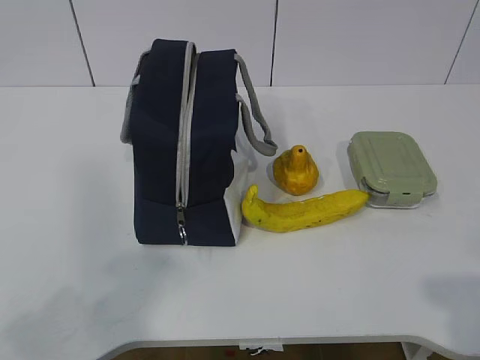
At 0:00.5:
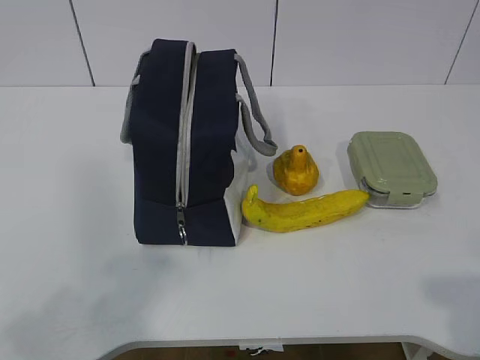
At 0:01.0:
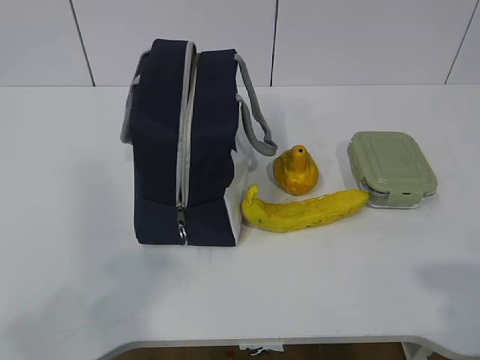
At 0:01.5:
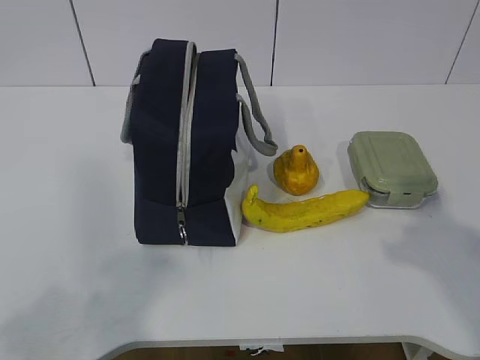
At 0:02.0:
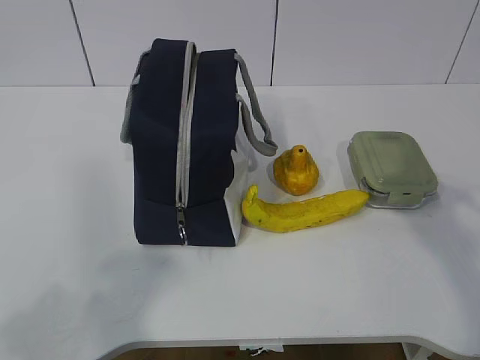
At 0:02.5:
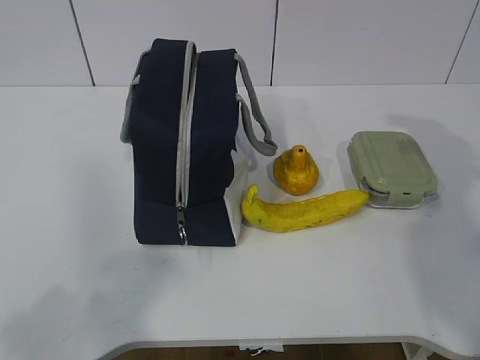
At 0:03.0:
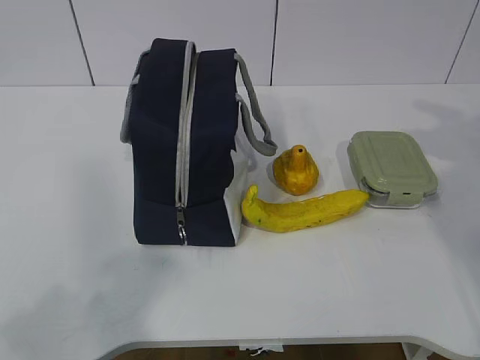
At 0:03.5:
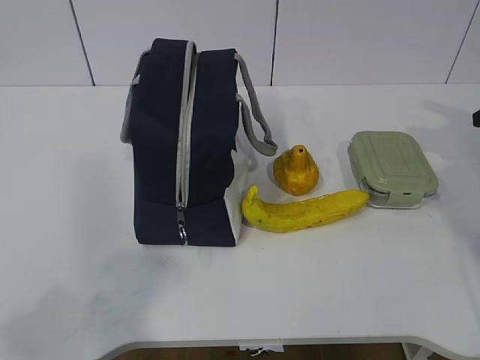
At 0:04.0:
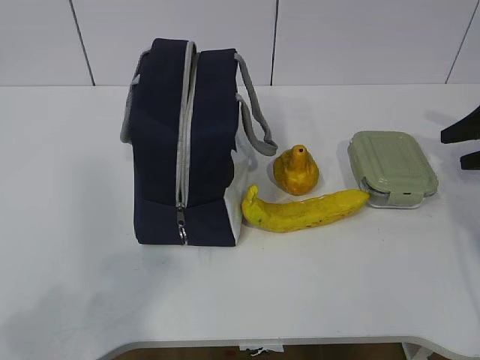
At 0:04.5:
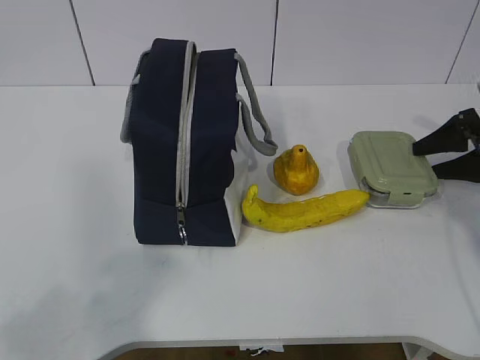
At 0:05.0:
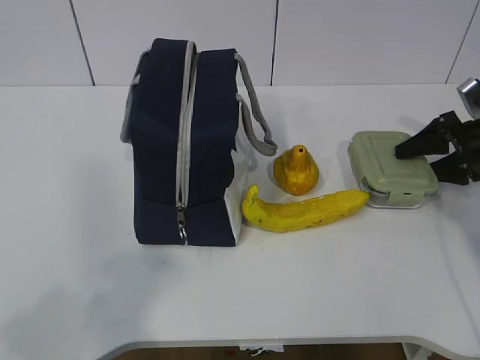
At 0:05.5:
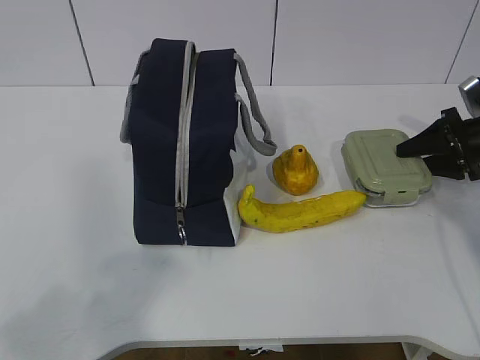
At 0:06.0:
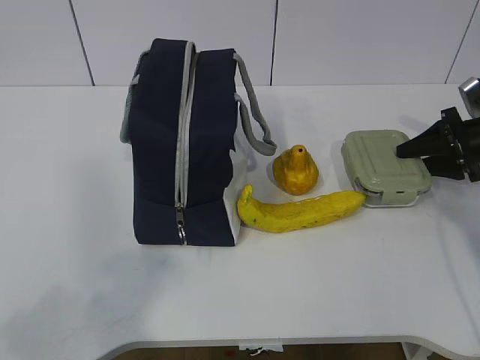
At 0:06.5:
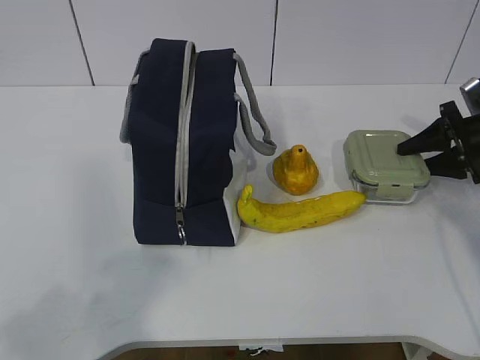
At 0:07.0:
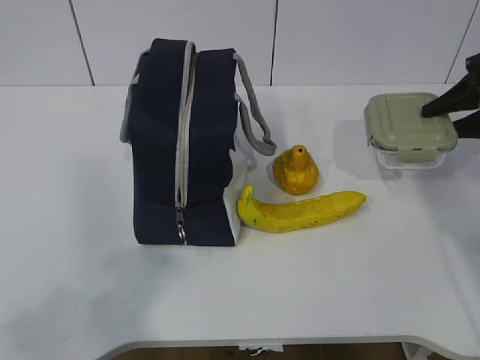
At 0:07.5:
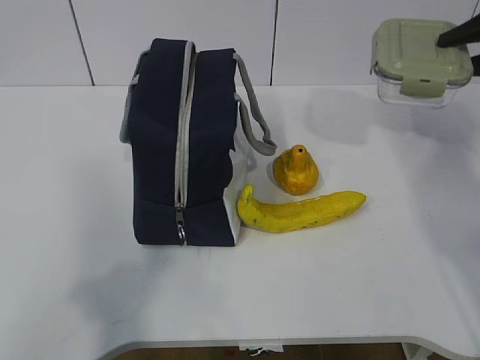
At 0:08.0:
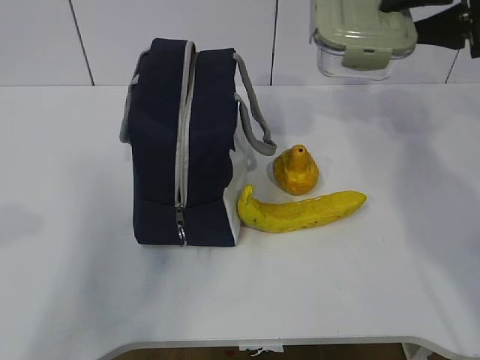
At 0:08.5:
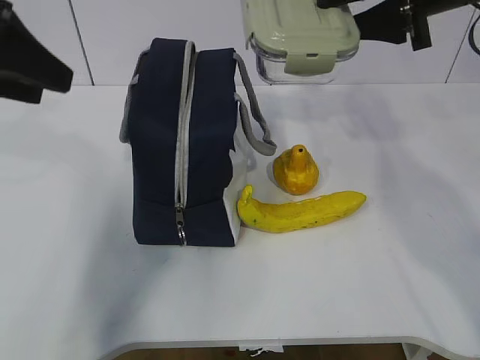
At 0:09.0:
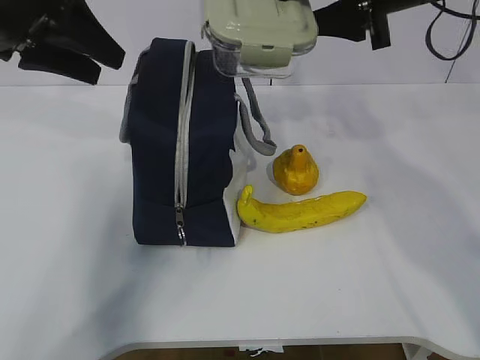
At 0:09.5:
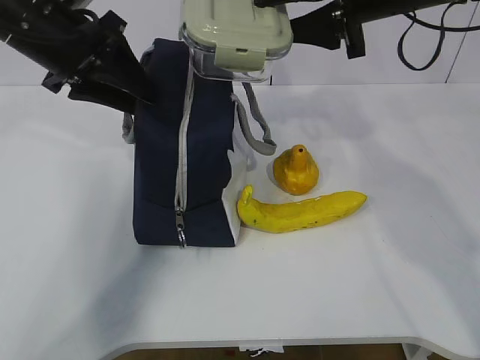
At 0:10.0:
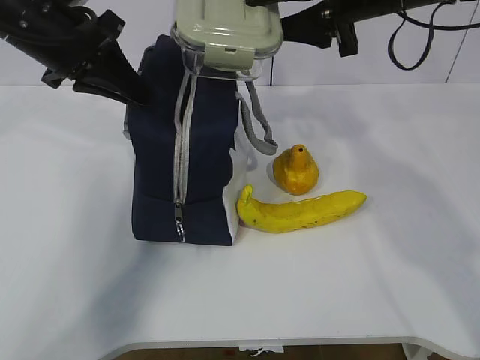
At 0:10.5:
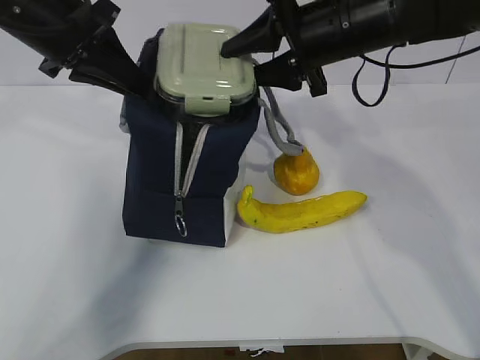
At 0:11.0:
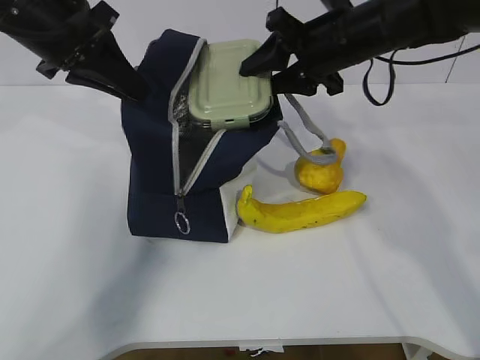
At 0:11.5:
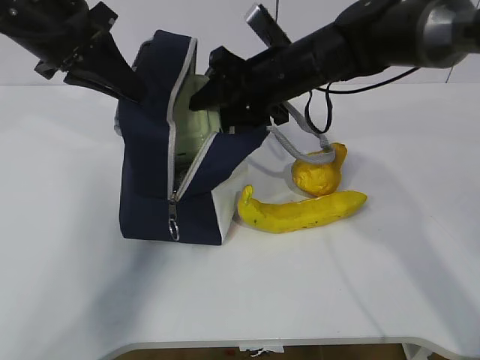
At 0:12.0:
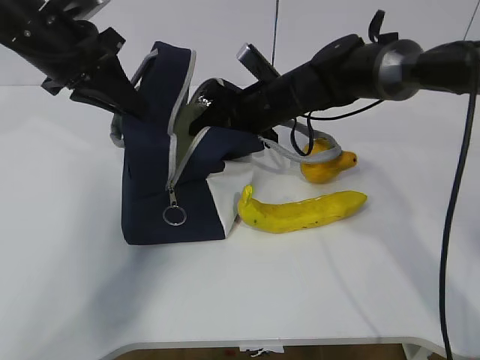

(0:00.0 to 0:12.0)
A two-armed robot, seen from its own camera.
Step, 0:00.0 - 0:05.0: Grab the lunch box with your right hand.
Step, 0:05.5 - 0:08.5: Grab the lunch bag with your left hand.
Step, 0:09.0 - 0:10.5: Place it into the bag with your right hand.
0:02.0 - 0:04.0: The right gripper moves forward, downward and to the right, about 30 cm, and opens its fingers.
0:04.0 - 0:06.0: The right gripper ends up about 5 cm from where it was, and closes its fingers.
0:06.0 - 0:08.0: The right gripper goes some 20 cm upward and to the left, while the left gripper heads forward, covering roughly 15 cm.
0:08.0 - 0:10.0: The left gripper is displaced forward by some 25 cm, and closes. The right gripper heads to the left, covering some 15 cm.
0:10.0 - 0:12.0: The right gripper goes roughly 20 cm downward, to the left and forward.

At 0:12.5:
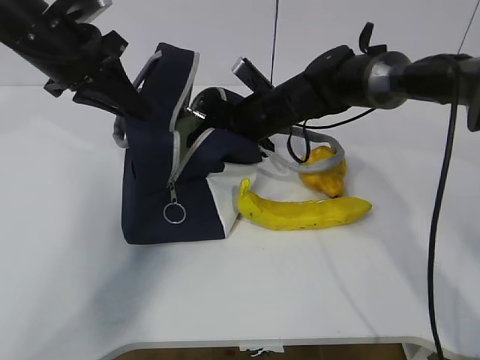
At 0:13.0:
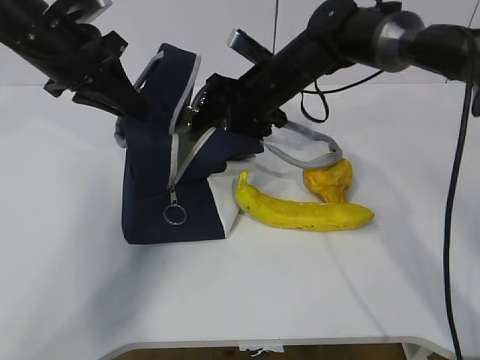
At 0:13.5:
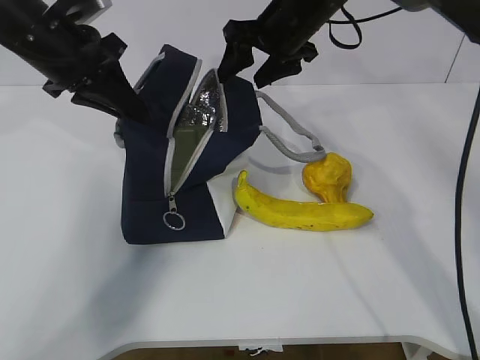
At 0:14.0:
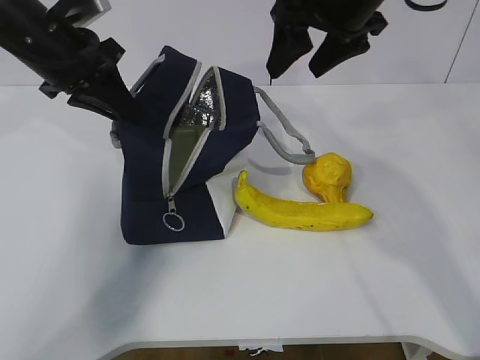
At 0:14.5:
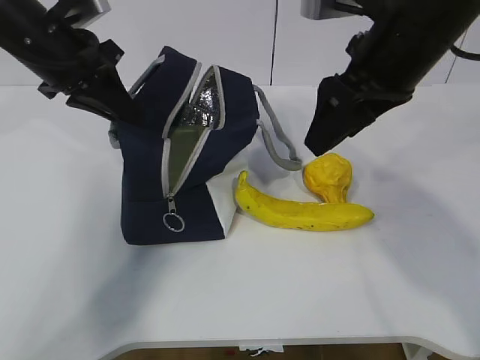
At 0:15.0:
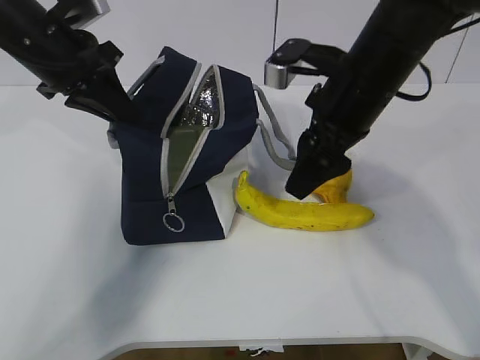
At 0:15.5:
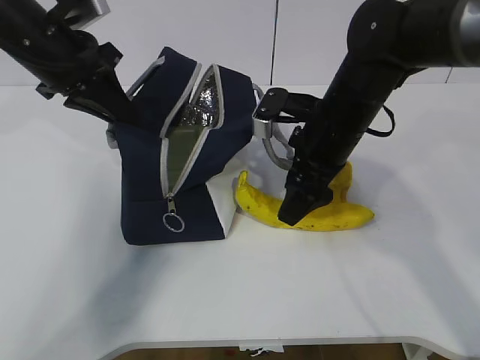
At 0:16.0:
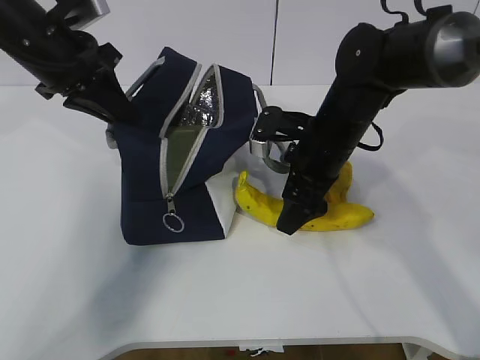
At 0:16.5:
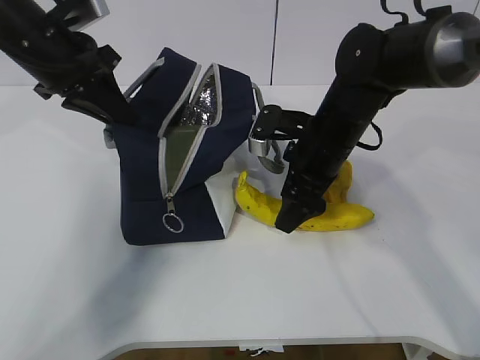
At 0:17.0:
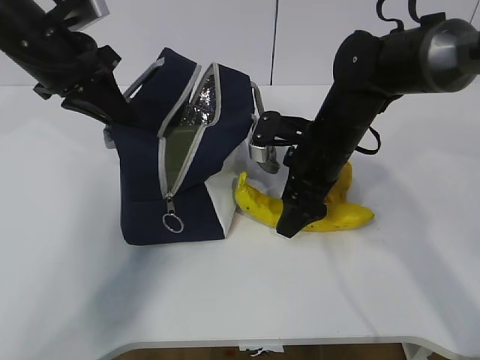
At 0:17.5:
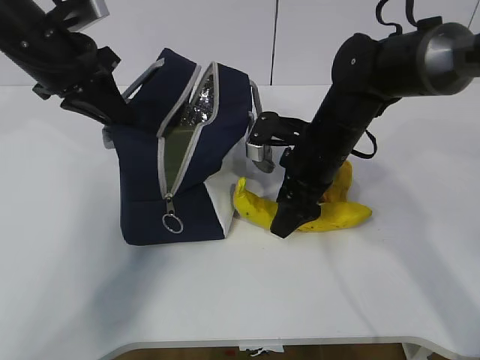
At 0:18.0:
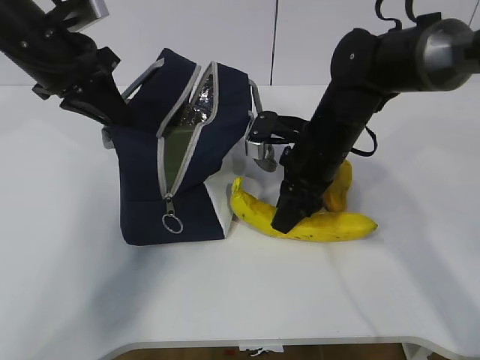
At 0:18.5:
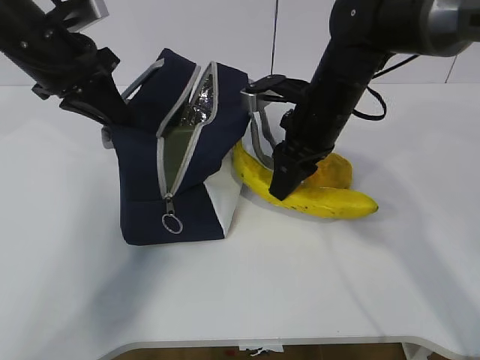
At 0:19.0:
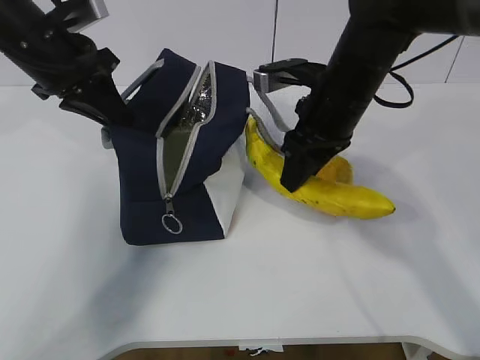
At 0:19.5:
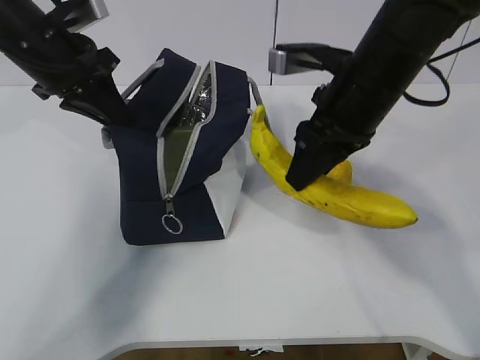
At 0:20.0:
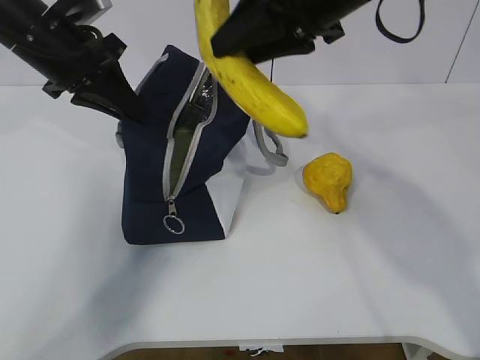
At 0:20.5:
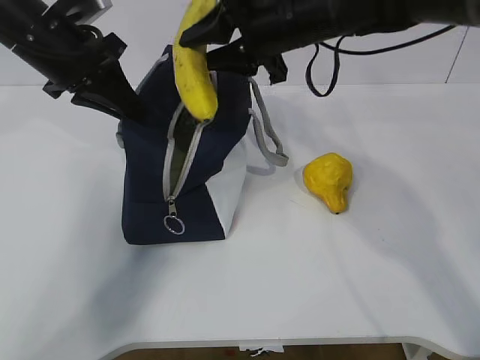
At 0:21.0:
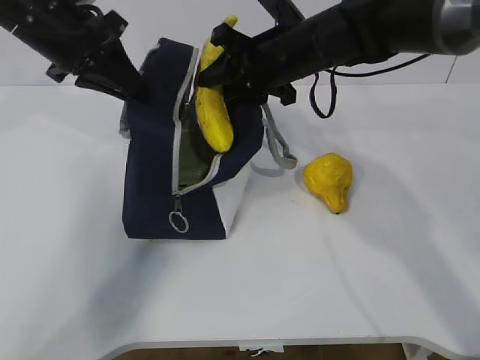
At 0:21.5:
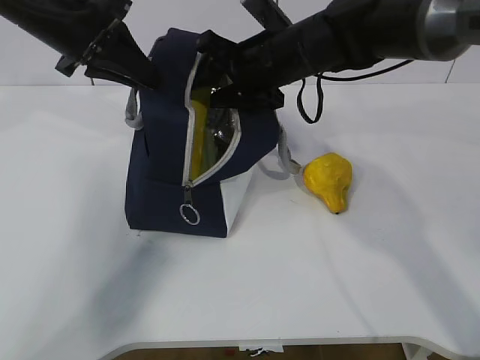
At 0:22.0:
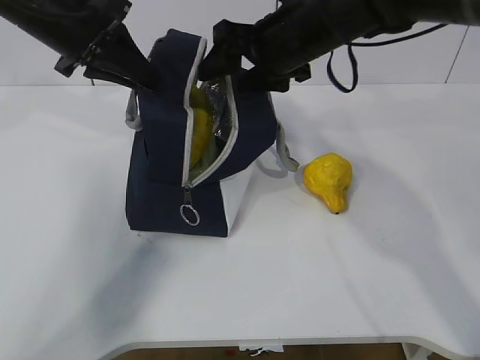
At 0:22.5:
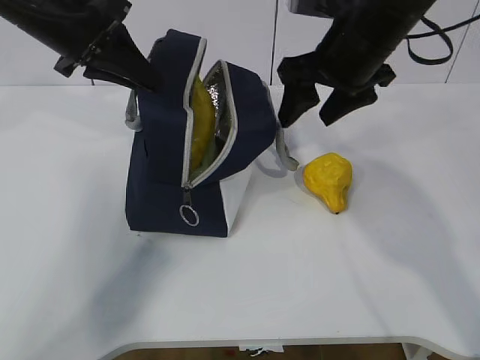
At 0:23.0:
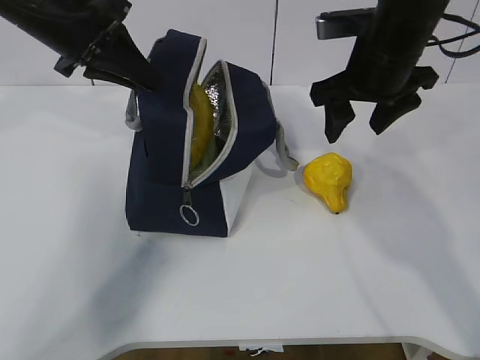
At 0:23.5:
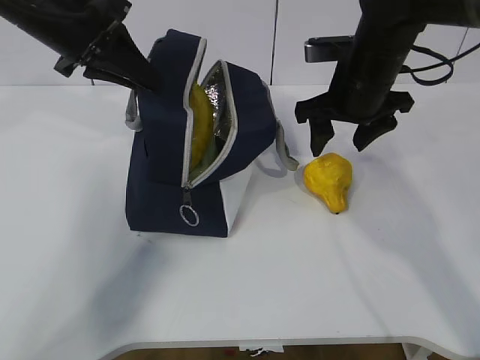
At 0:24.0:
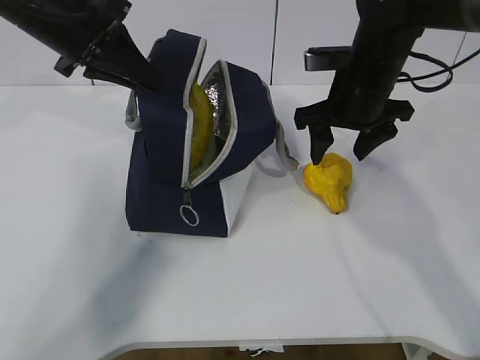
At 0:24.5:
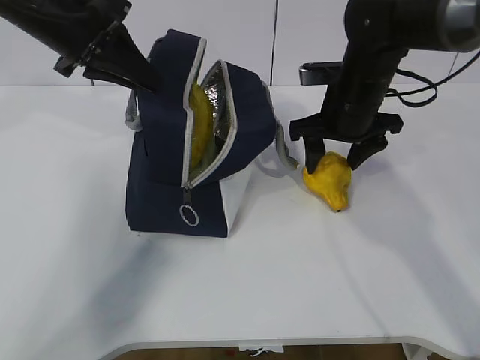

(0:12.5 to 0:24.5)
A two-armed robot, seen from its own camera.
Step, 0:12.5 - 0:14.5: Grab the banana with your right hand.
Step, 0:15.0 - 0:19.0: Place it into the bag with your right hand.
0:12.5 - 0:14.5: The right gripper moves upward, backward and to the right, approximately 25 cm.
0:14.5 - 0:16.5: The right gripper is displaced downward by some 15 cm.
0:16.5 - 0:18.5: The right gripper closes its fingers.
0:18.5 - 0:20.5: The right gripper shifts some 10 cm upward.
0:20.5 - 0:22.5: The right gripper moves to the right, roughly 5 cm, and opens up.
0:22.5 - 0:24.5: The right gripper goes roughly 10 cm downward.

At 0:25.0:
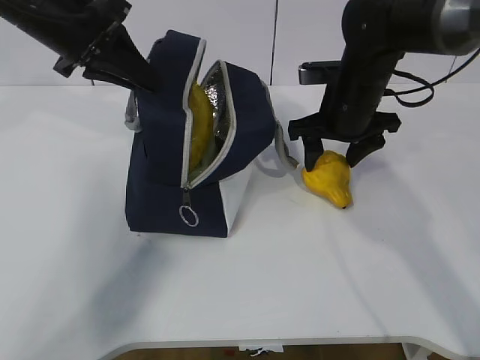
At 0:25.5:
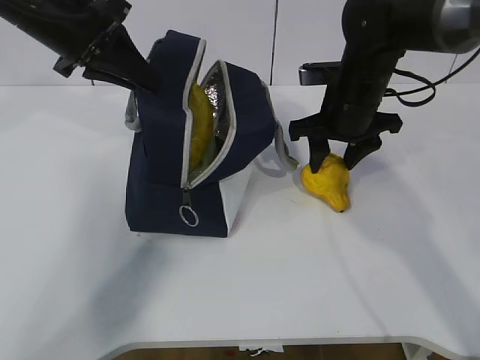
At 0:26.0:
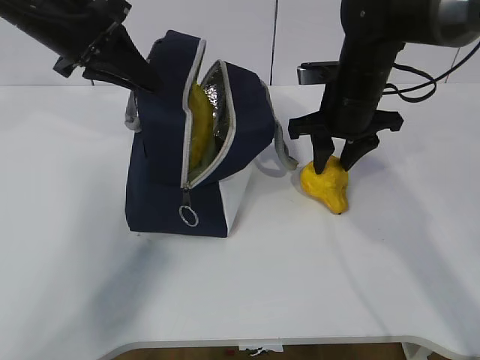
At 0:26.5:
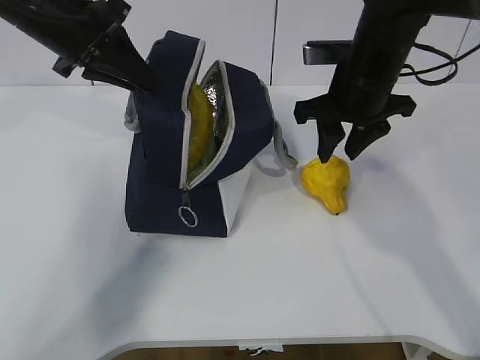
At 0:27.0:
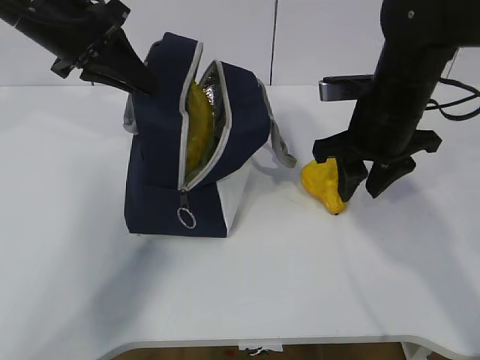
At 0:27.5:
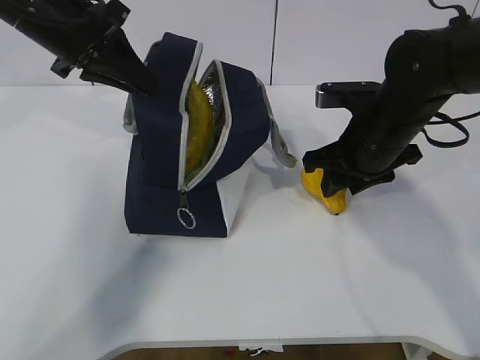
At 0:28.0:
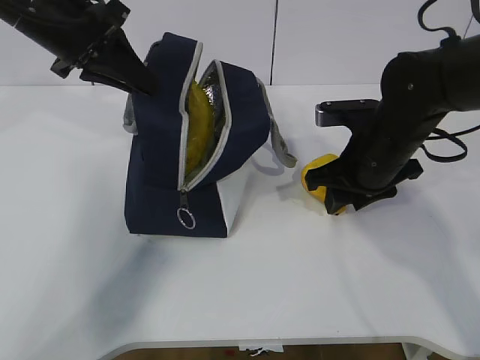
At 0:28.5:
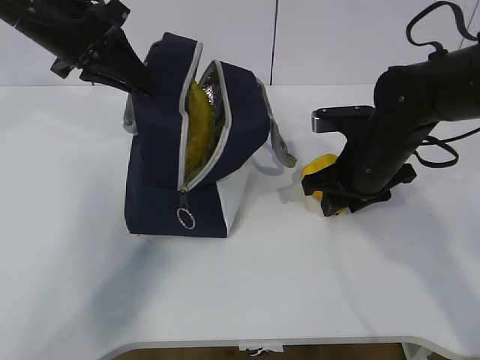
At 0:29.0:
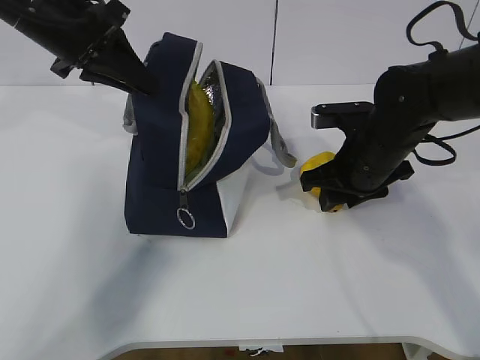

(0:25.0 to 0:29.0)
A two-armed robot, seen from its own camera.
0:25.0 - 0:27.0: The right gripper travels backward by approximately 5 cm, and closes.
0:27.0 - 0:29.0: The right gripper goes about 5 cm downward.
